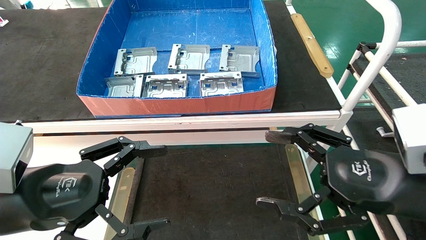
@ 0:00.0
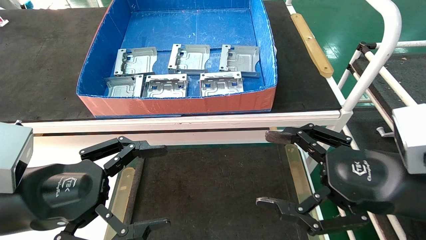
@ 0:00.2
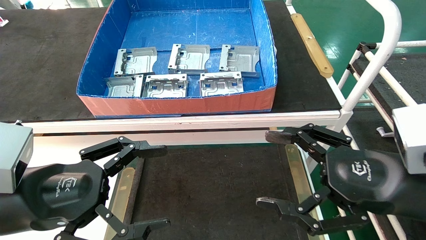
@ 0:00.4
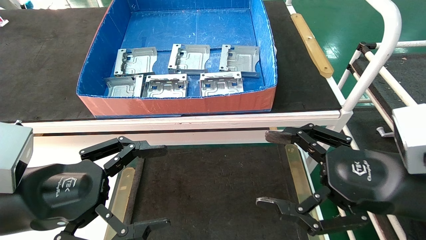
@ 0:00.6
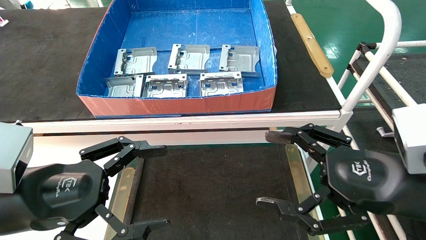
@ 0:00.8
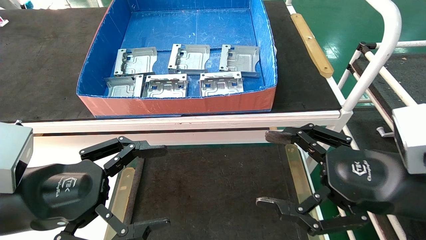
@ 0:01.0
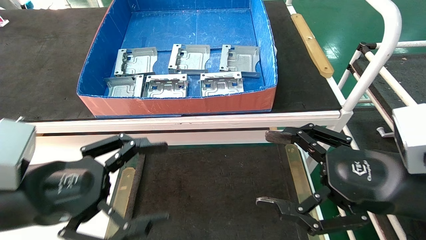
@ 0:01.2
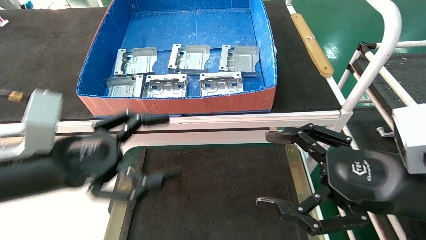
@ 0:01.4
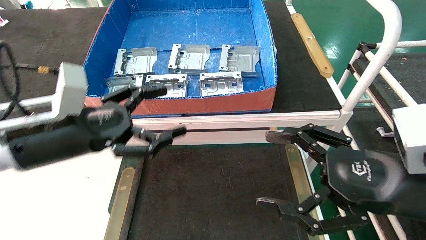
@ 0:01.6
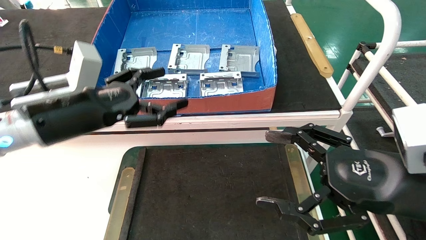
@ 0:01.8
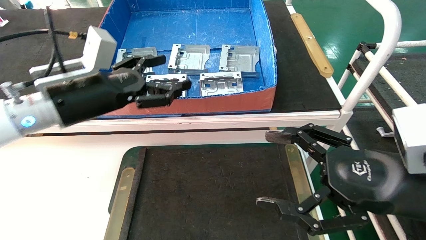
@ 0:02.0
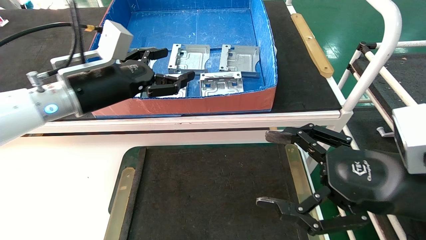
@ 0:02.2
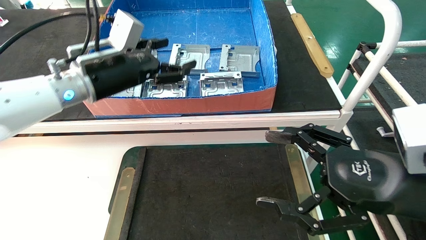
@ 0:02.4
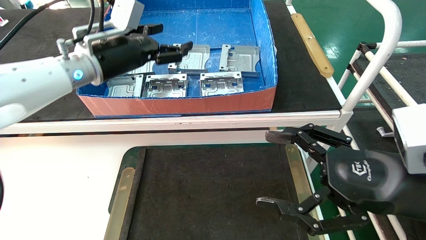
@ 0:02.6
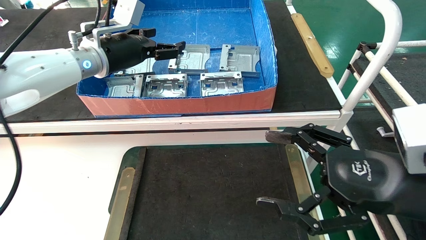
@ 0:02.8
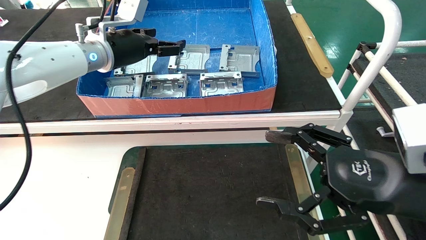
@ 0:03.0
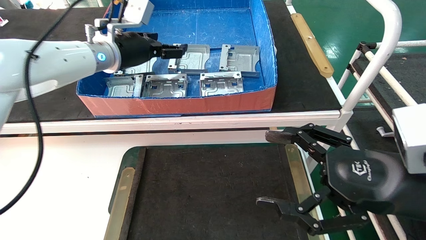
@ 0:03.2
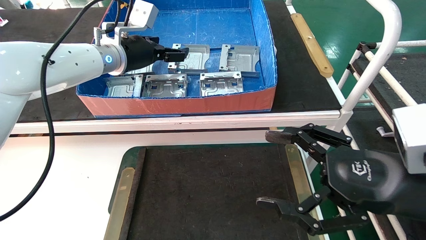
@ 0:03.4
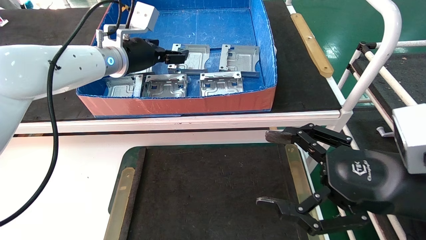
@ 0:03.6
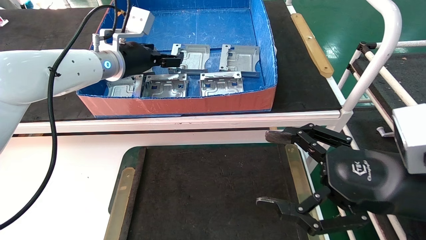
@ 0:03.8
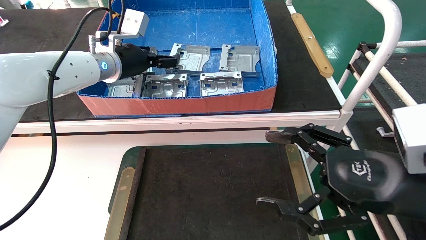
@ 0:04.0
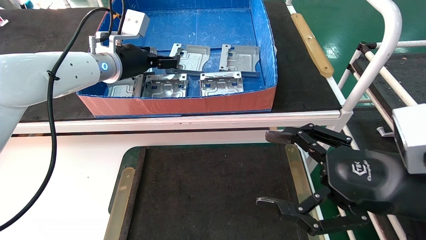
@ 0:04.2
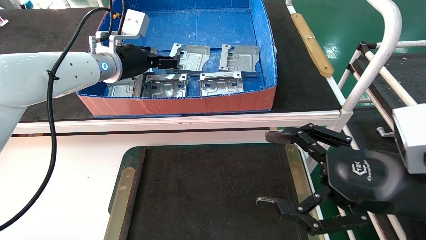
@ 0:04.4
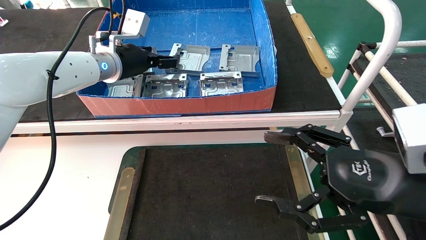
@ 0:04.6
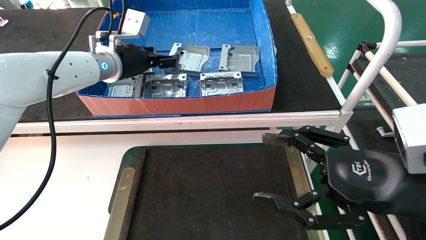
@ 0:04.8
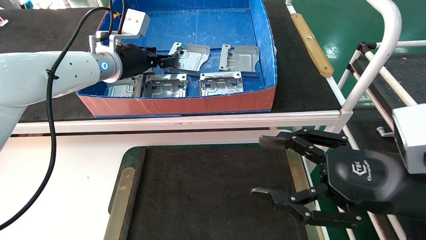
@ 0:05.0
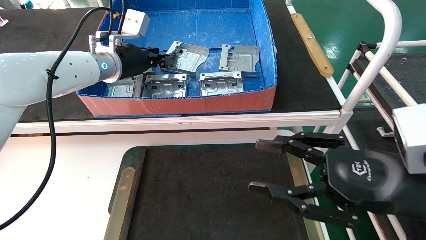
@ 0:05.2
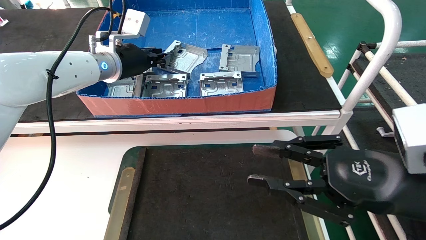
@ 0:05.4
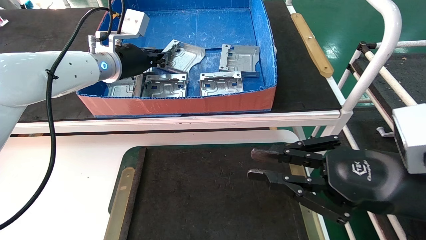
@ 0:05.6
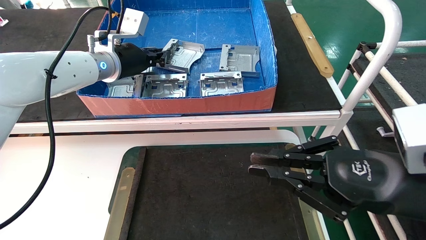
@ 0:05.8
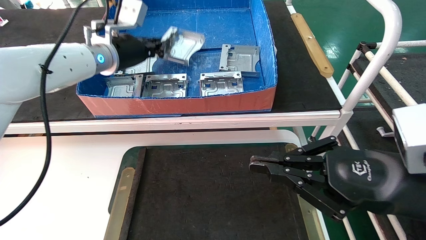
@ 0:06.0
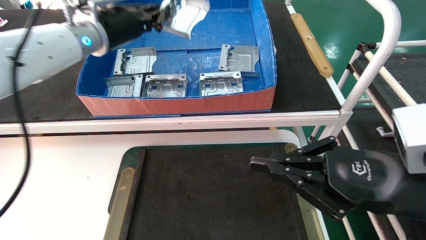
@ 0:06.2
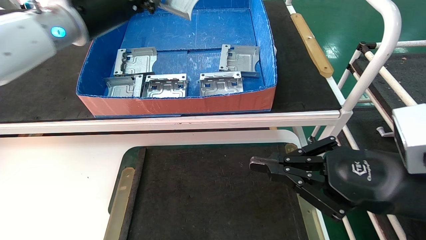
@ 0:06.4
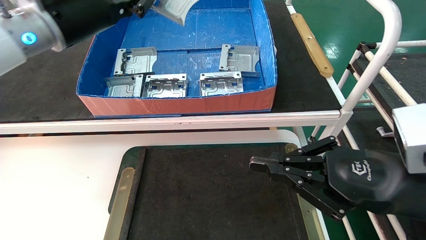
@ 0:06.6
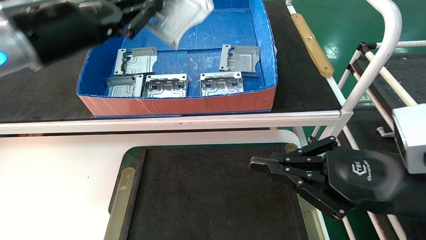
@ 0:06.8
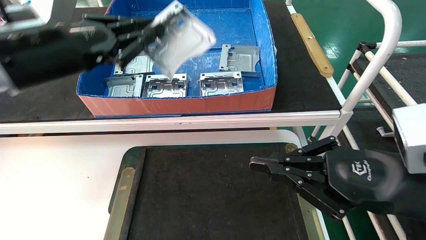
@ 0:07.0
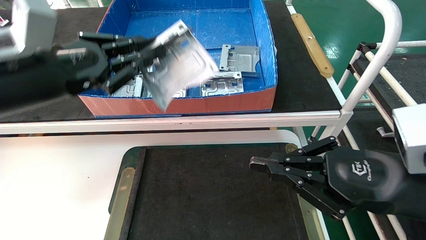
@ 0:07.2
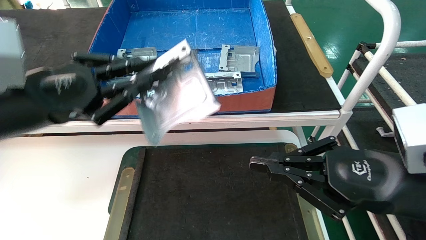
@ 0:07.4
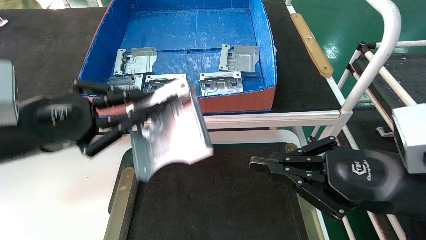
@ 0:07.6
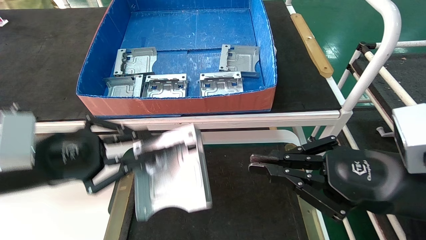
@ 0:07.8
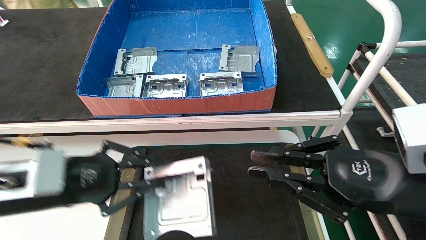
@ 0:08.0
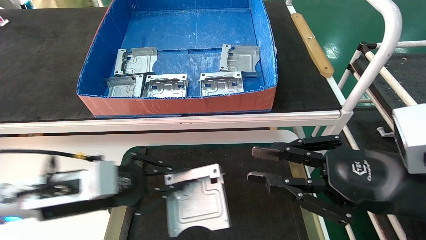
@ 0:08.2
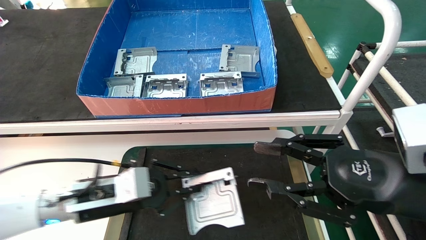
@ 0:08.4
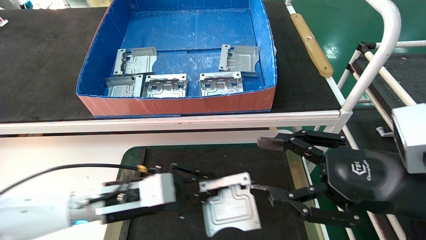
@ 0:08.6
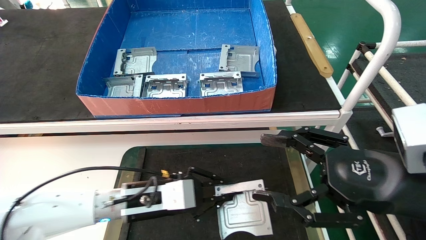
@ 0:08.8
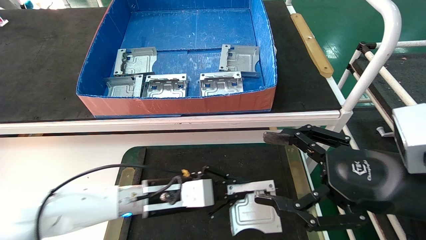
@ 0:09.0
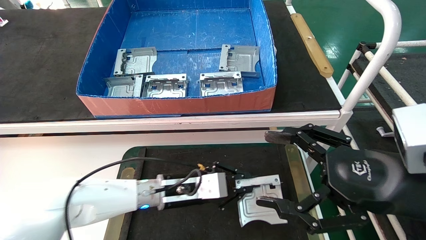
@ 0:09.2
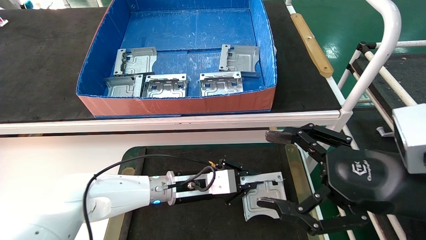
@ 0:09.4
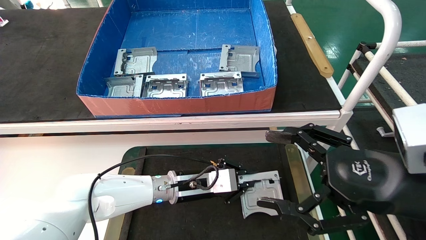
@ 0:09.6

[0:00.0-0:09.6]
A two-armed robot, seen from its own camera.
Task of the whole recording: take the accessories out of the box and place them on the table.
Step, 0:01.4 to 0:05.8: Pick up the hard drive bracket from the feeding area.
0:00.0 to 0:01.6: The left gripper travels forward by about 10 cm.
0:01.6 to 0:03.2: The left gripper is displaced forward and upward by roughly 20 cm.
0:03.2 to 0:04.8: The grippers stay close to where they were, moving slightly.
0:04.8 to 0:06.4: The right gripper closes its fingers. The left gripper goes roughly 10 cm backward and upward, and closes its fingers.
0:06.4 to 0:08.0: The left gripper shifts some 25 cm downward and backward.
0:08.0 to 0:09.6: The right gripper opens up. Meanwhile the left gripper is displaced to the right, forward and downward by about 25 cm.

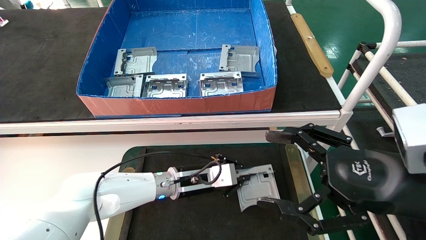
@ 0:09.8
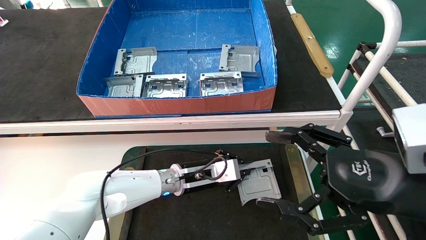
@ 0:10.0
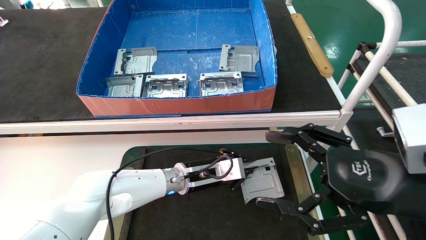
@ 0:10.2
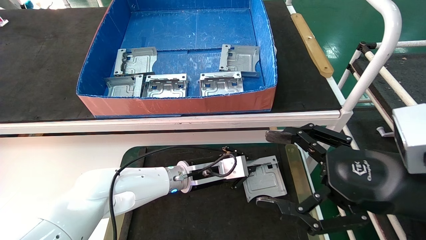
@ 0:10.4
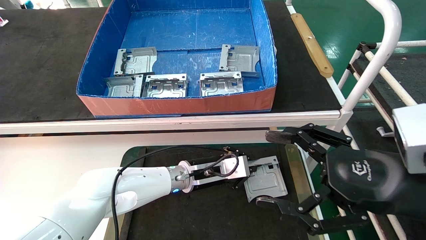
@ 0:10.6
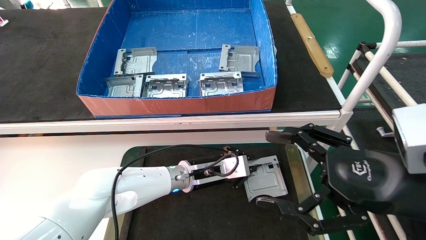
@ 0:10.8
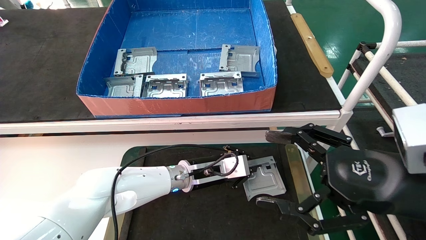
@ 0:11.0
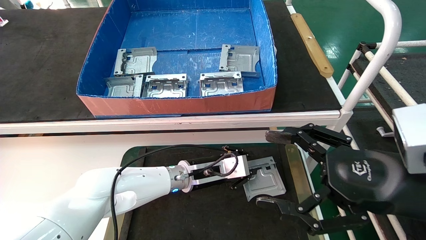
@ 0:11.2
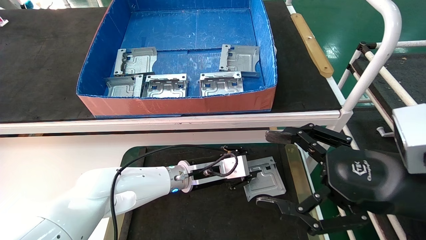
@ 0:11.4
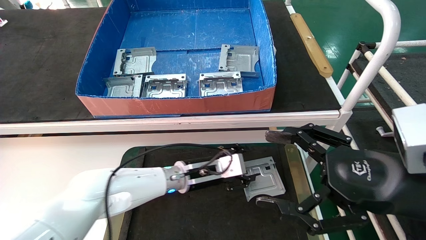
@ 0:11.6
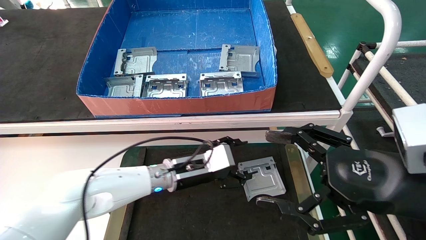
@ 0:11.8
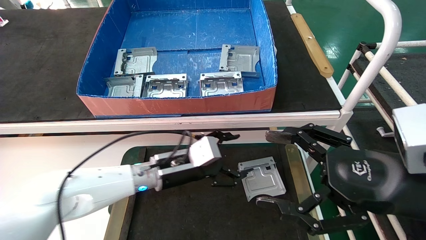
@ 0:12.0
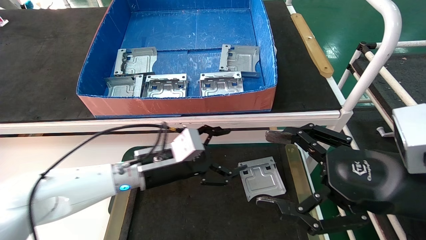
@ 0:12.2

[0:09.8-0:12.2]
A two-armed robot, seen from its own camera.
Task of the whole recording: take the accessories out of the box and place them on the table.
0:09.8 to 0:11.0: The grippers move only a little.
0:11.0 to 0:12.2: The left gripper goes approximately 10 cm to the left and backward, and opens.
